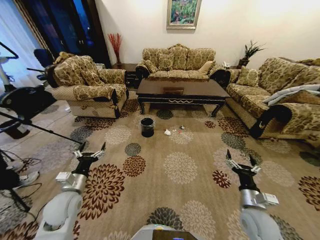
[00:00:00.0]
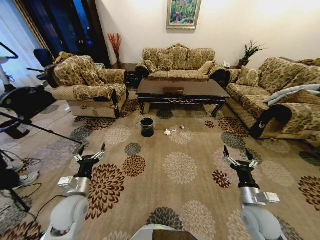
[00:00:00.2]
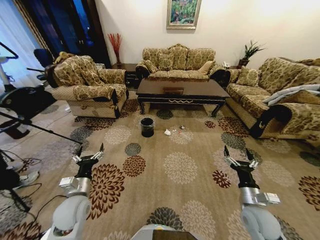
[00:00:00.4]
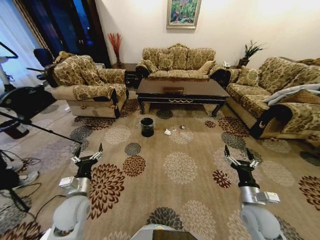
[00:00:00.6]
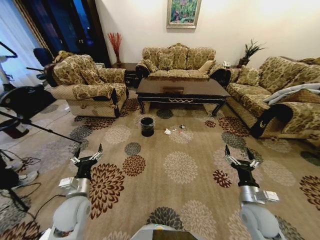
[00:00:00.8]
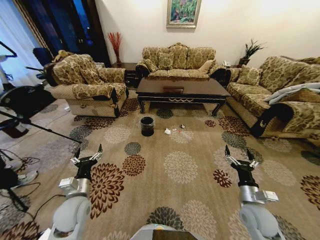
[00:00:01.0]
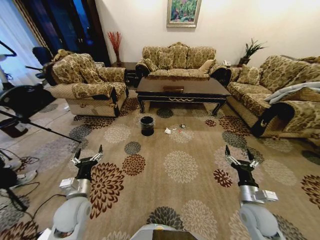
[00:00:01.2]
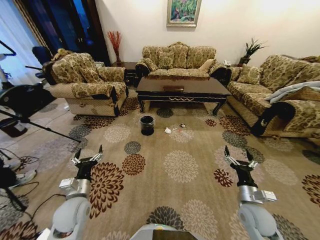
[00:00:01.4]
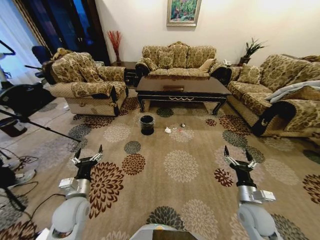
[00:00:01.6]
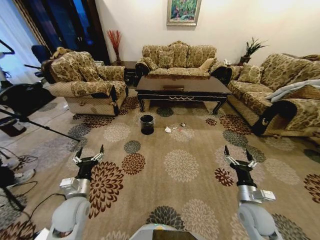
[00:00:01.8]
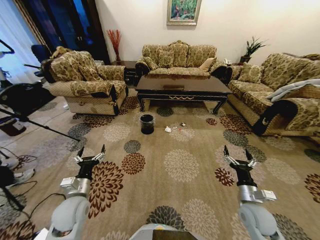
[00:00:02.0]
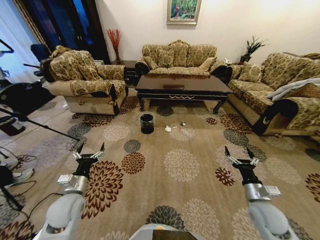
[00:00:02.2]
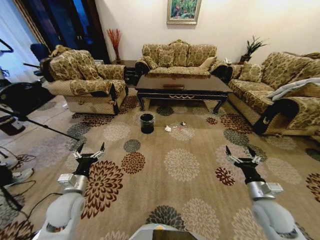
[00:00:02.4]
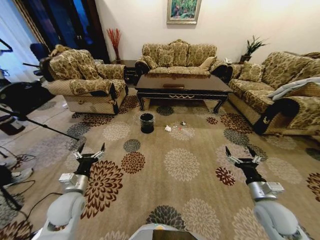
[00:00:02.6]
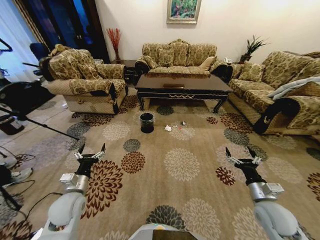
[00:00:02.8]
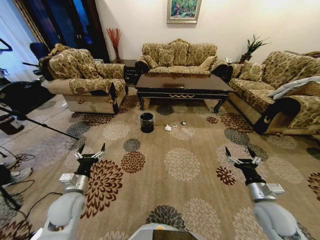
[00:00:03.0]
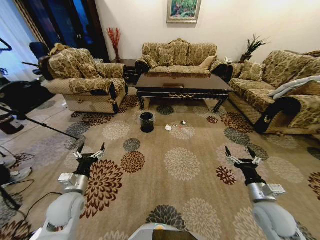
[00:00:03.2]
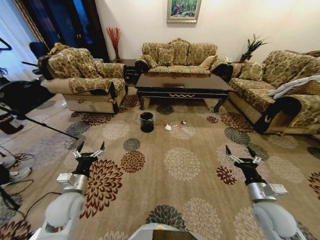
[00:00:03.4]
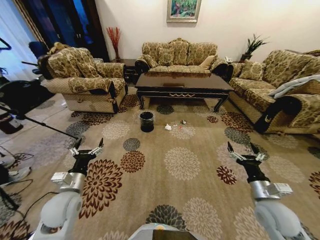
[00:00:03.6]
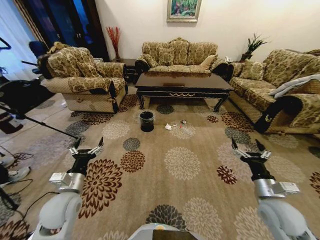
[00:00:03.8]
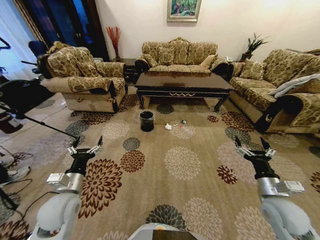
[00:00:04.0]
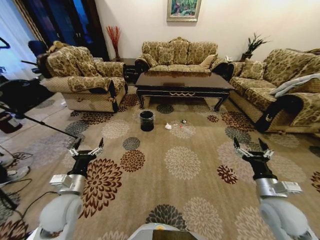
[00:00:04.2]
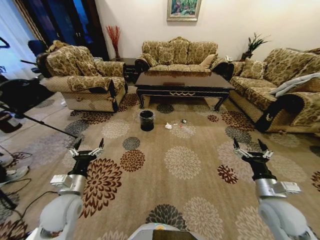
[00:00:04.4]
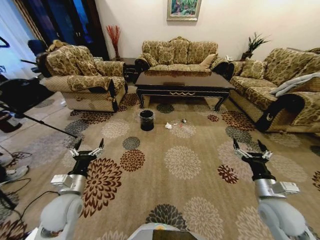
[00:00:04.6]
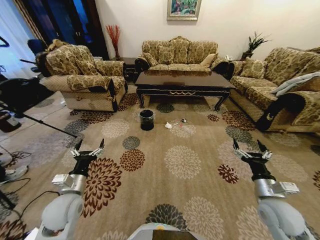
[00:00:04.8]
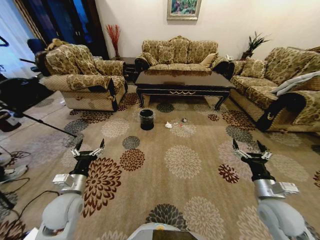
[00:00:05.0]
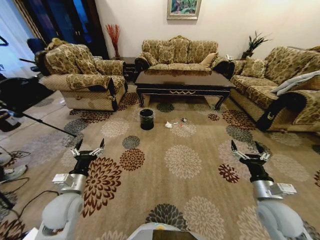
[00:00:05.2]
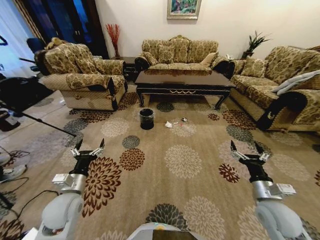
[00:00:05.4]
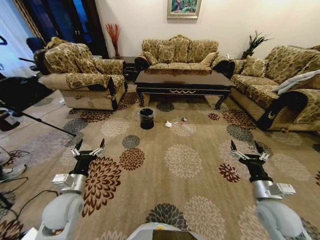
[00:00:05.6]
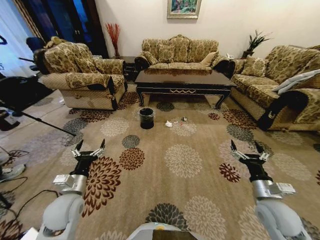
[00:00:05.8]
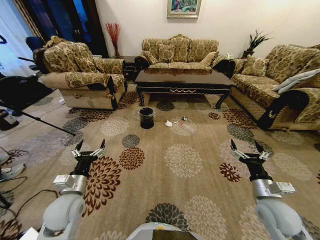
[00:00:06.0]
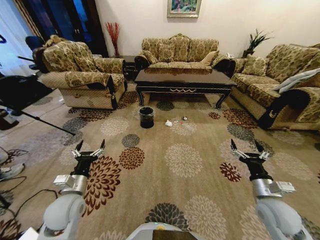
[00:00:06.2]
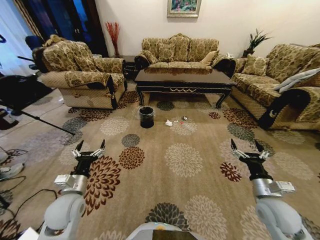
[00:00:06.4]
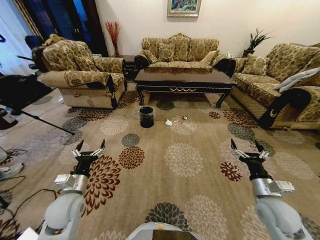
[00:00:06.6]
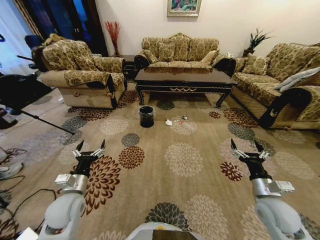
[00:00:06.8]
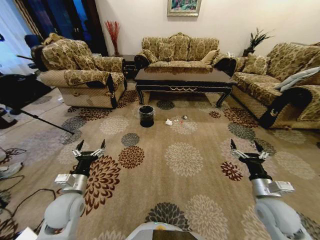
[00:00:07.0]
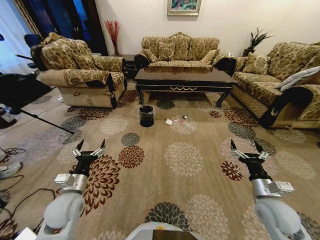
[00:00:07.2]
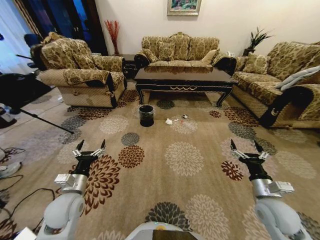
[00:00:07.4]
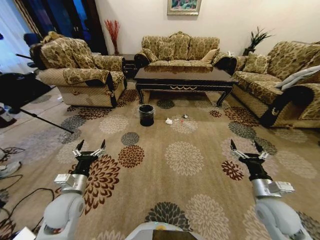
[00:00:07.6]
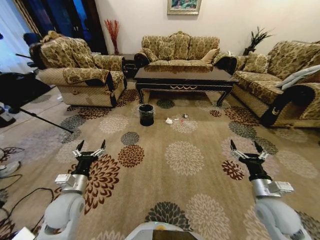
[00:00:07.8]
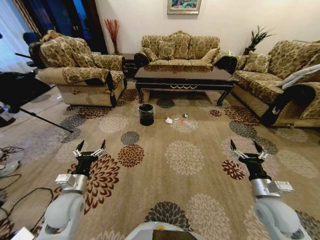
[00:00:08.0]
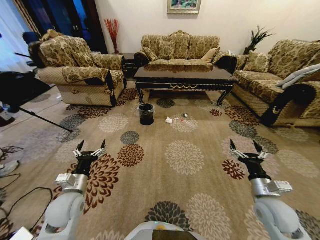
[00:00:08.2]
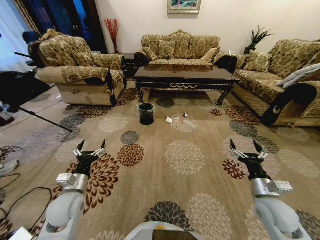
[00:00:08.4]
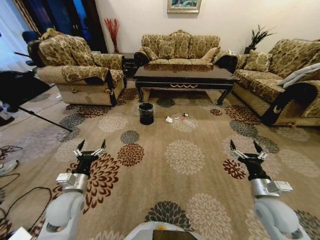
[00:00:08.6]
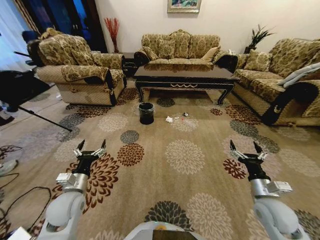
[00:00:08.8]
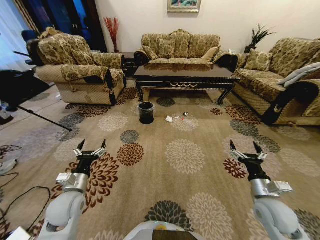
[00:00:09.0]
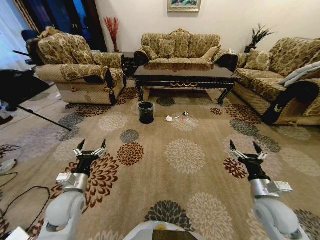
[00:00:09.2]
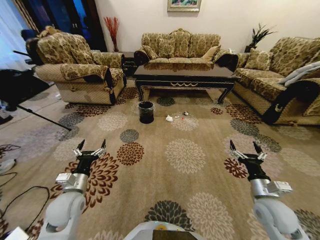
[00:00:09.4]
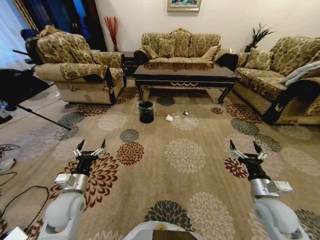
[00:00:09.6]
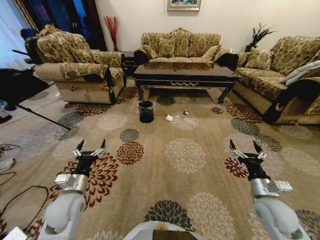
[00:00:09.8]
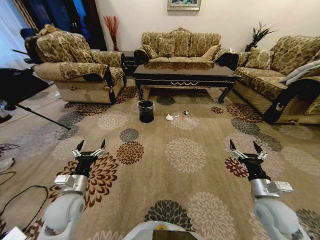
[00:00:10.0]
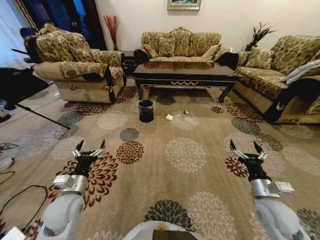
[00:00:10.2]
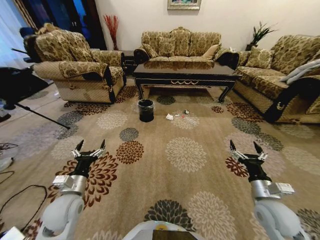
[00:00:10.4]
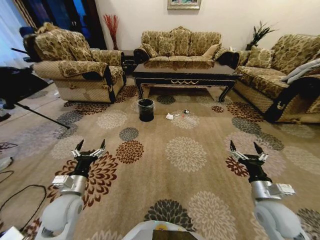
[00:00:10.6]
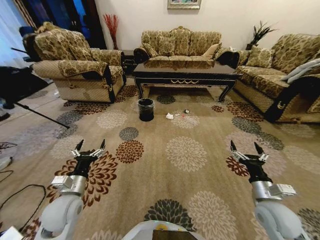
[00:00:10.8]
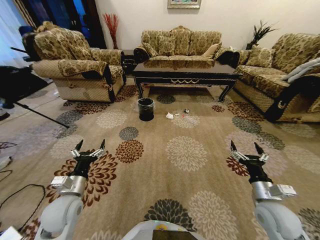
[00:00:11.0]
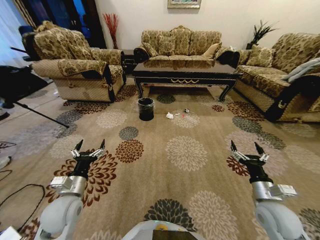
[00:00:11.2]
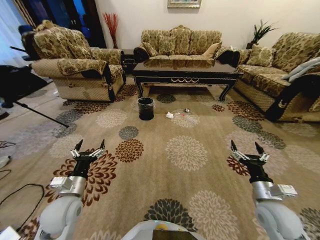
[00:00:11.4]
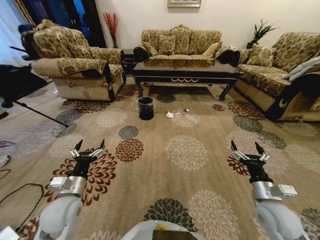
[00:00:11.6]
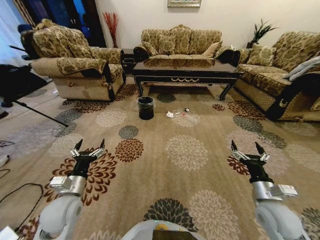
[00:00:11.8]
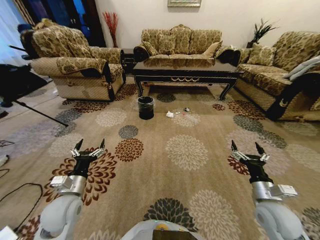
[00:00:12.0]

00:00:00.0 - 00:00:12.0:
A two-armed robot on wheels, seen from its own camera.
Task of the whole recording: Move to the front of the table and pick up the trash from the floor, then place it into the trash bin.
00:00:01.6 - 00:00:03.0: The right gripper changes place by about 5 cm.

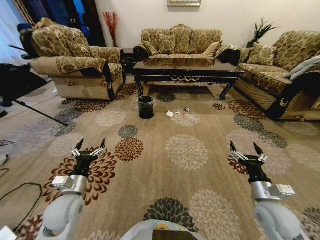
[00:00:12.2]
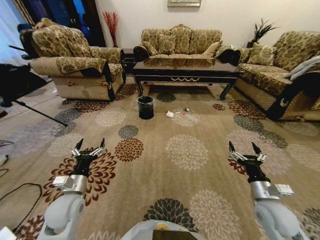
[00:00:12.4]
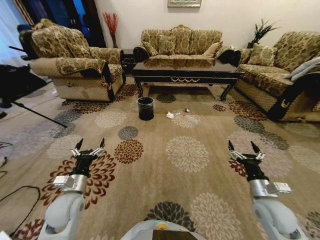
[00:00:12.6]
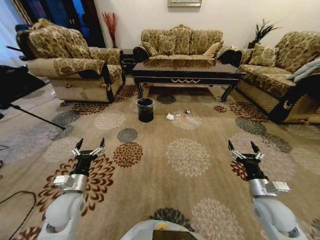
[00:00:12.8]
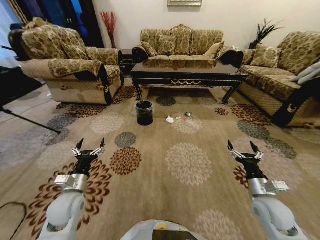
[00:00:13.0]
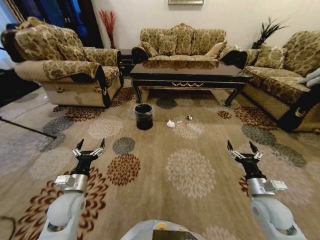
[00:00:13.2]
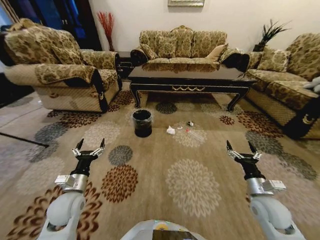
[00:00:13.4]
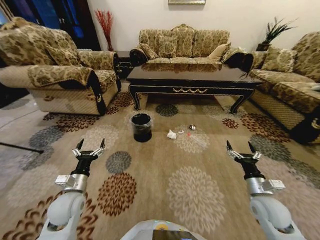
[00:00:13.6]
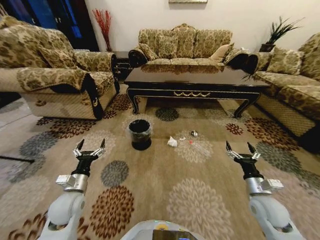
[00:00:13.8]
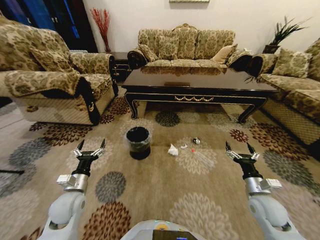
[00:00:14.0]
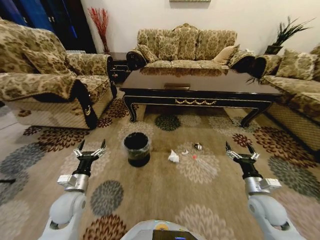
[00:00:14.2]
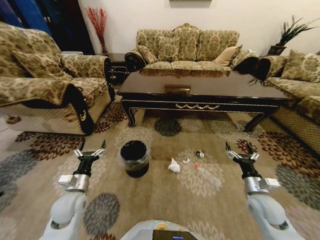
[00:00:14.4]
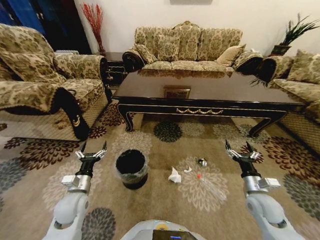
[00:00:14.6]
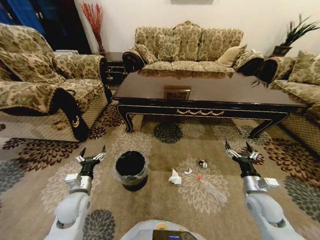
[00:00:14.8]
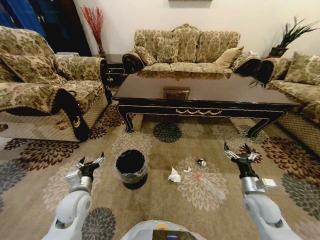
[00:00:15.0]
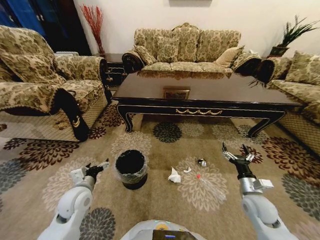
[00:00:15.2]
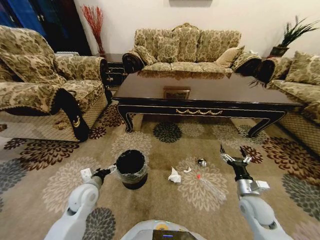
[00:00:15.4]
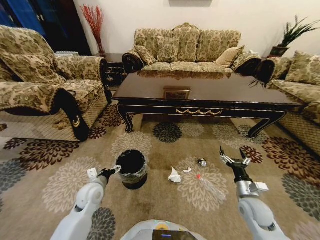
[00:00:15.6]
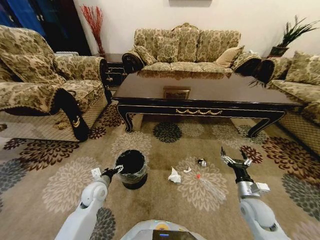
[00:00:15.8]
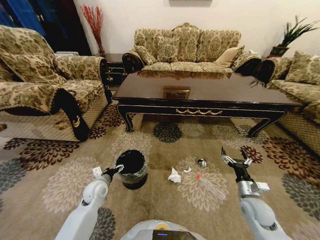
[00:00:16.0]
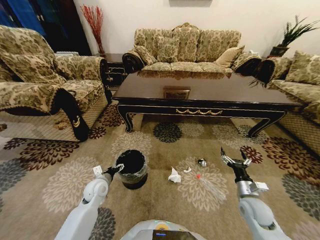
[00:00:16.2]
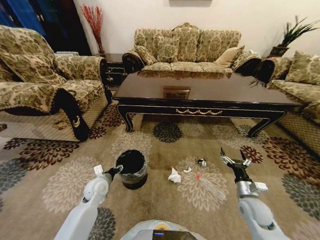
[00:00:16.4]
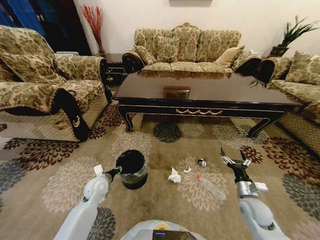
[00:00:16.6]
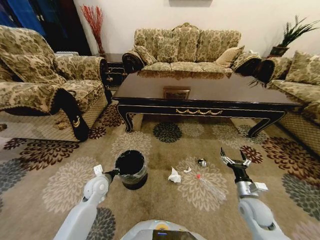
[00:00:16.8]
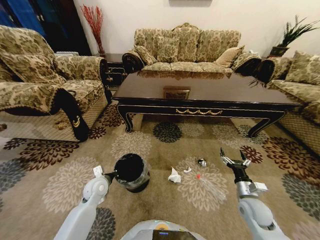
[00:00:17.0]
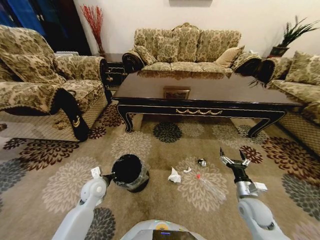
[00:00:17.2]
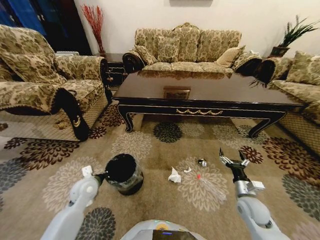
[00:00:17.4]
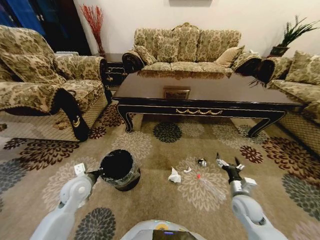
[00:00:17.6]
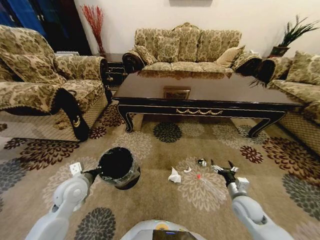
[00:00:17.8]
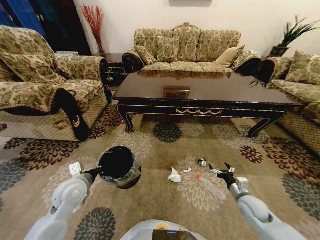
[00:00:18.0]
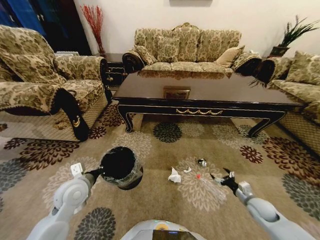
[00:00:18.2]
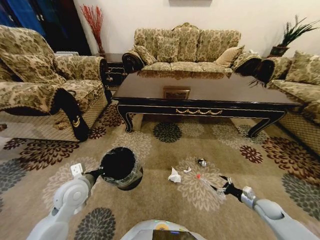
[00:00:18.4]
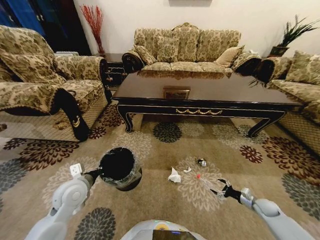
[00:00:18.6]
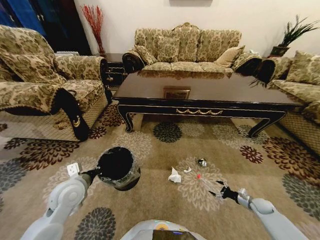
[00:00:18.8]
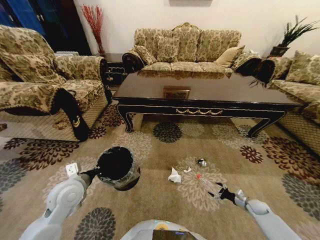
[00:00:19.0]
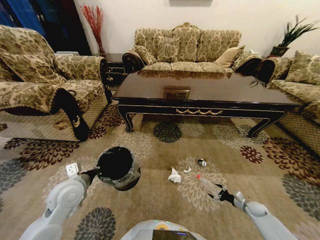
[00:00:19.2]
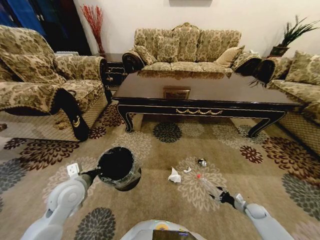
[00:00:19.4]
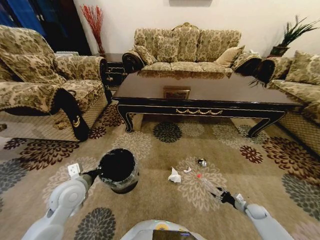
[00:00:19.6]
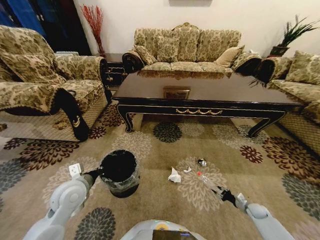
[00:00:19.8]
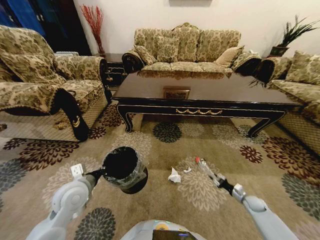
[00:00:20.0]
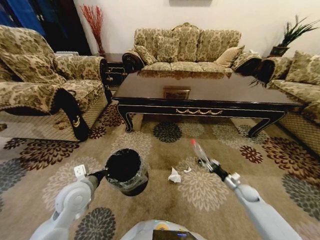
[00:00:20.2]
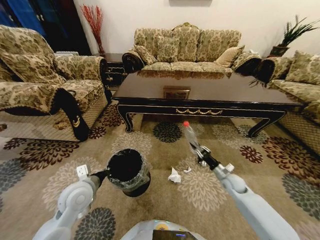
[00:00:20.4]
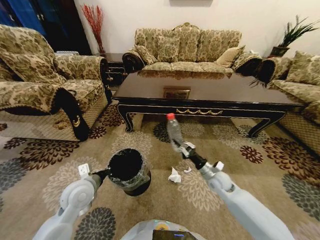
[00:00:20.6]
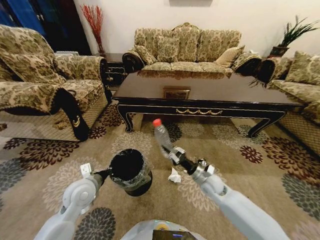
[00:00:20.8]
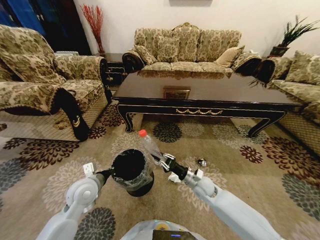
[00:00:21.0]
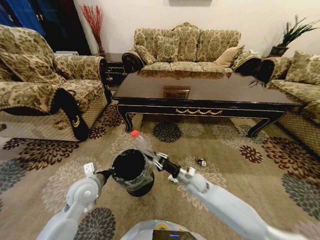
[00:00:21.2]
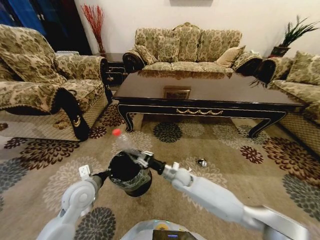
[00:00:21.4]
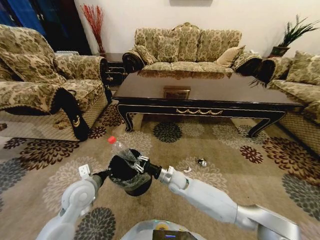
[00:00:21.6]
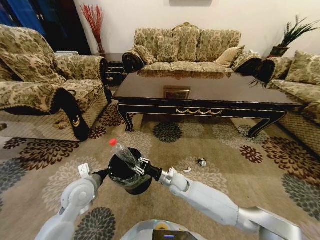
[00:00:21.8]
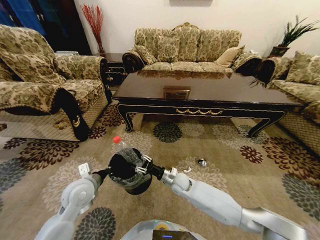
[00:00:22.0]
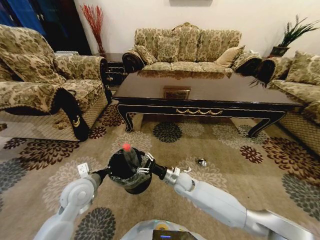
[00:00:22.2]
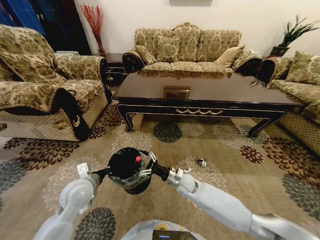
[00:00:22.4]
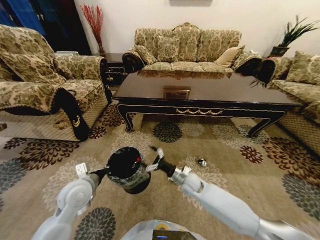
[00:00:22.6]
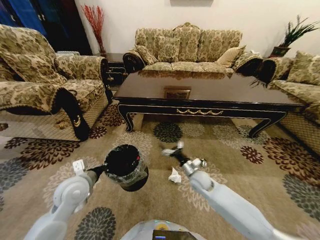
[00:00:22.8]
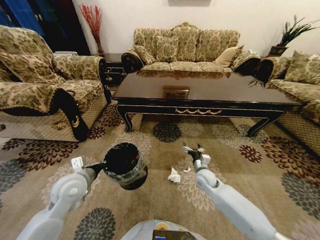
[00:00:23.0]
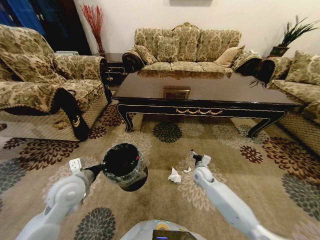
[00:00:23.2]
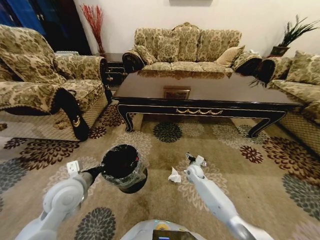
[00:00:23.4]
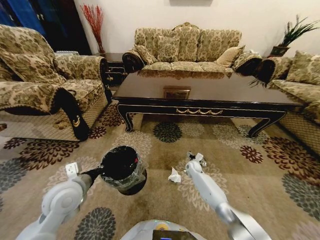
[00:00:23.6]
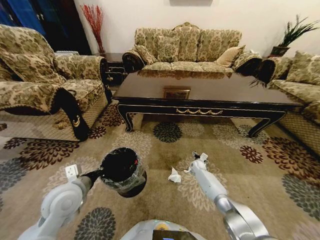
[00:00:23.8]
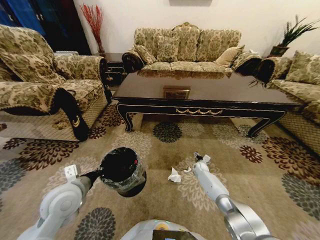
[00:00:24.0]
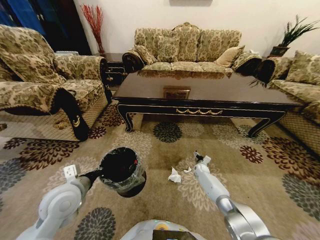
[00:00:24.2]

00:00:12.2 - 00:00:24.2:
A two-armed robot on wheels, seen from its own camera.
Task of the whole recording: Move to the front of the table and pick up the trash from the floor, then place it into the trash bin.
00:00:15.2 - 00:00:16.6: The left gripper heads downward and forward, covering some 10 cm, and closes up.
00:00:16.6 - 00:00:18.2: The left gripper goes approximately 10 cm upward and backward, and closes its fingers. The right gripper goes approximately 10 cm to the right and downward.
00:00:18.2 - 00:00:19.8: The right gripper shifts some 15 cm downward and to the right, and closes its fingers.
00:00:19.8 - 00:00:21.2: The right gripper goes roughly 40 cm to the left and upward.
00:00:21.2 - 00:00:22.6: The right gripper opens.
00:00:22.6 - 00:00:24.2: The right gripper is displaced forward, downward and to the right by some 25 cm.
